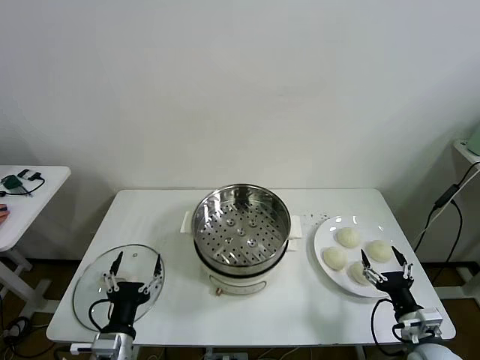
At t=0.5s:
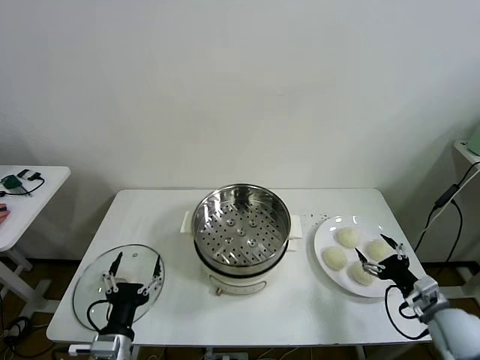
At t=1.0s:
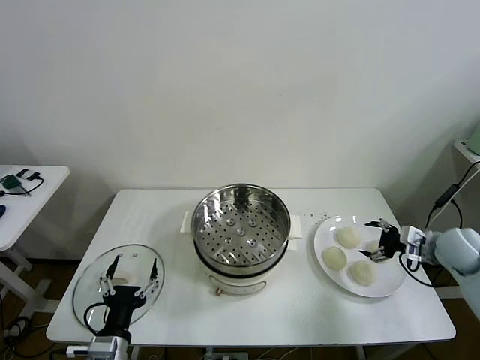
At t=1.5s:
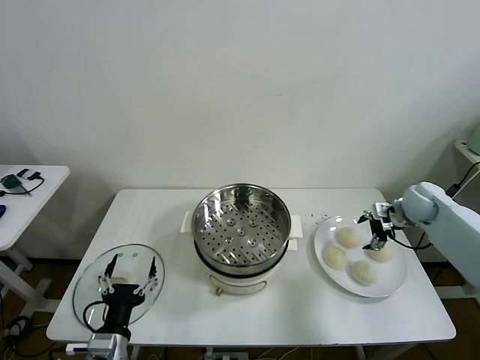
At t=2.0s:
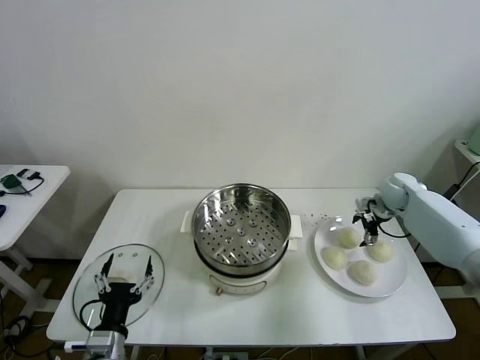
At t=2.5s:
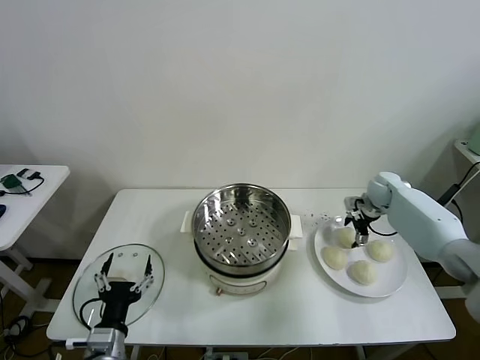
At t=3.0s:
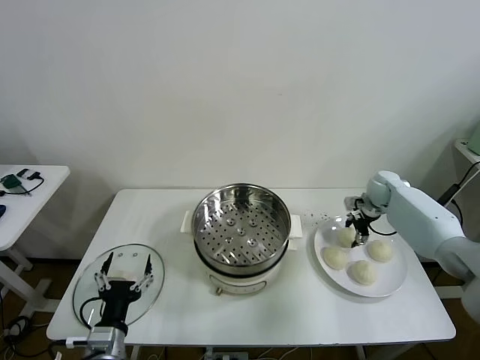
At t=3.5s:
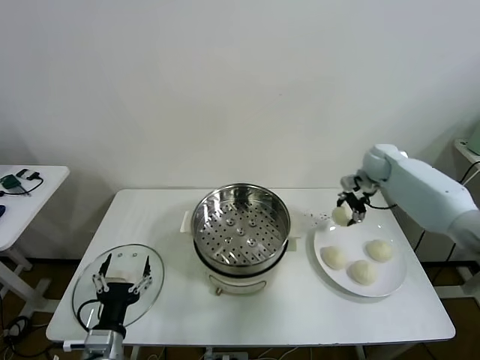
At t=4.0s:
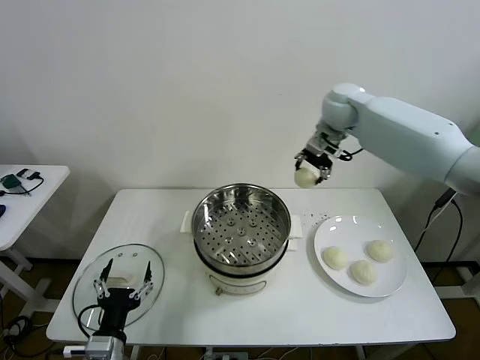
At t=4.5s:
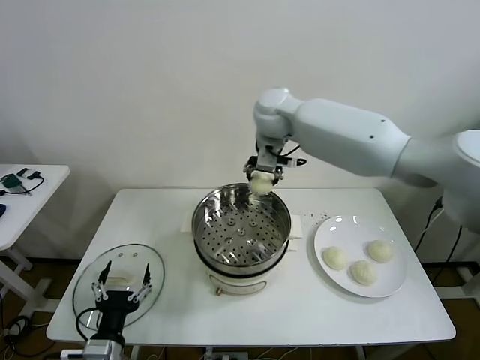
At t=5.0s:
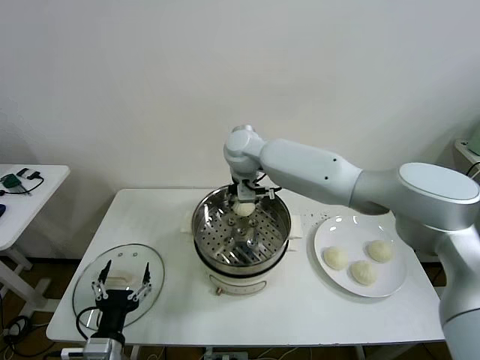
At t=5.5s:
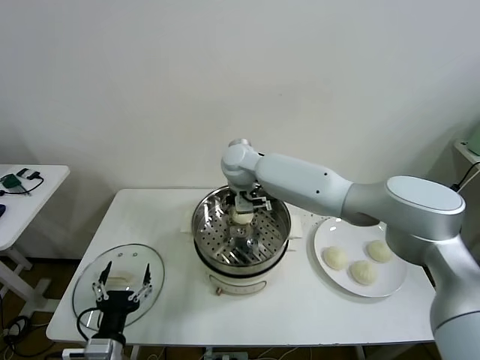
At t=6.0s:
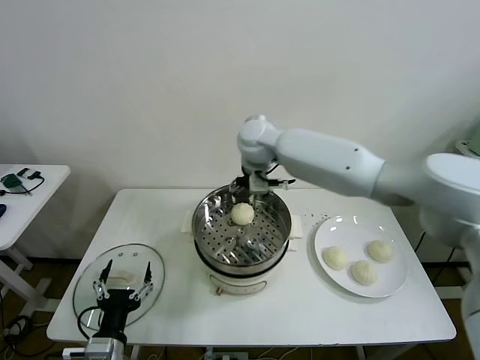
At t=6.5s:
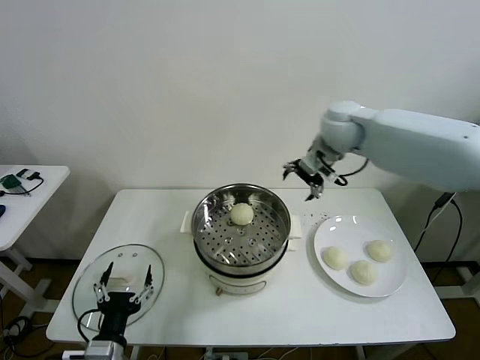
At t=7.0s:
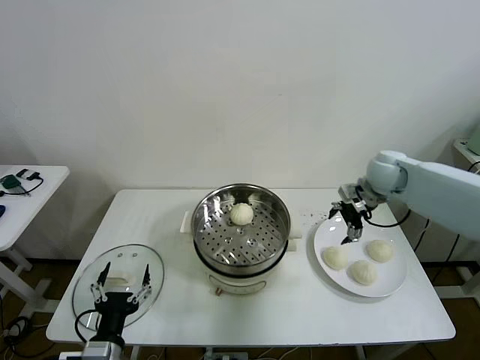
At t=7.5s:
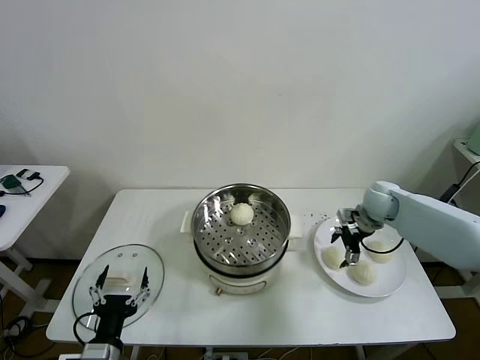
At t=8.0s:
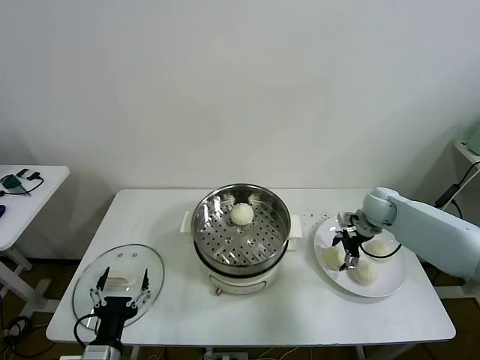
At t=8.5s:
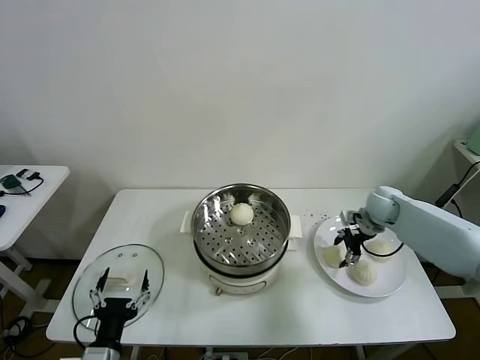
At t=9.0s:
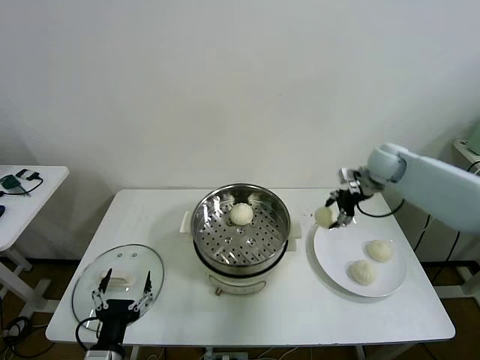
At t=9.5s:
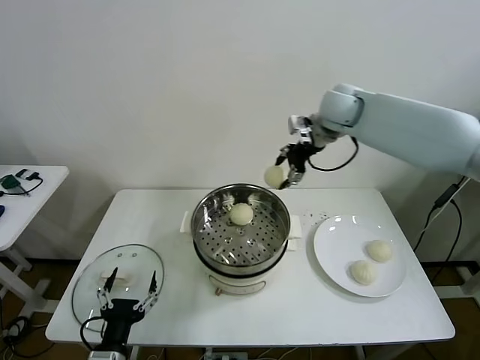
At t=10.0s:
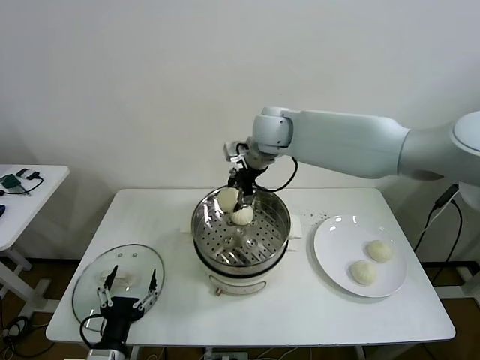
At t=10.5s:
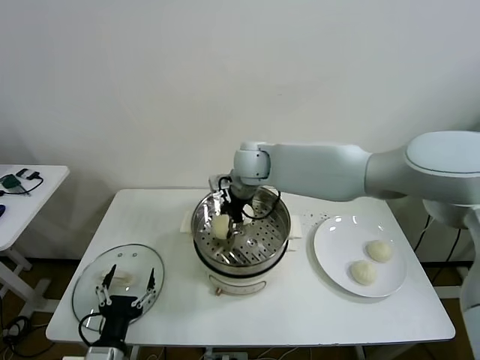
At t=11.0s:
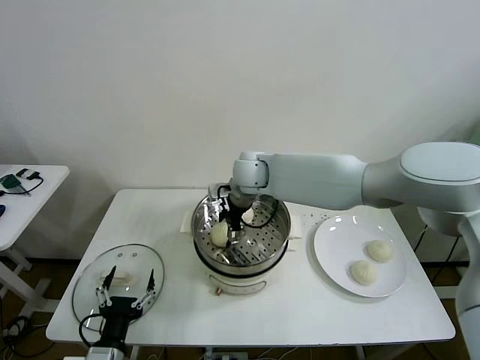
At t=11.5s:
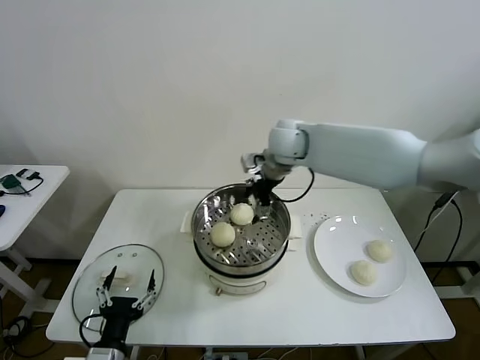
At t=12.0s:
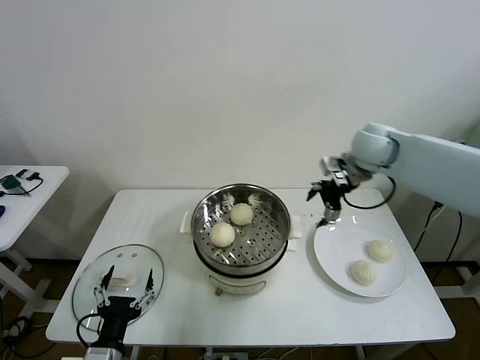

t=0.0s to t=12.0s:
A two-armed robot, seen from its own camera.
Task of the whole recording: take steamed baozi put them in steamer then cover it.
Step, t=0.0s to t=2.5s: Grasp the baozi in the plate with right gripper.
Step, t=3.0s to t=5.5s: Place the baozi on the steamer with right gripper.
Step, t=6.0s to t=8.0s: Grasp the baozi in the plate with right gripper.
Step, t=8.5s to t=11.0s: Place the baozi on the steamer with right gripper.
t=2.0s to t=4.0s: The right gripper heads upward and to the left, covering approximately 35 cm, and closes up.
t=4.0s to t=6.0s: The right gripper goes approximately 15 cm to the left, and opens its fingers.
t=6.0s to t=8.0s: The right gripper travels to the right and downward by some 40 cm, and closes.
t=8.0s to t=10.0s: The right gripper travels to the left and upward by some 40 cm.
t=10.0s to t=12.0s: The right gripper heads to the right, covering roughly 25 cm, and opens up.

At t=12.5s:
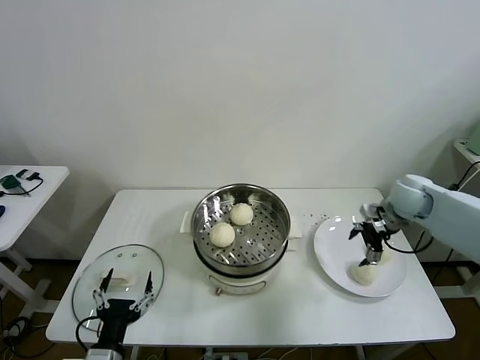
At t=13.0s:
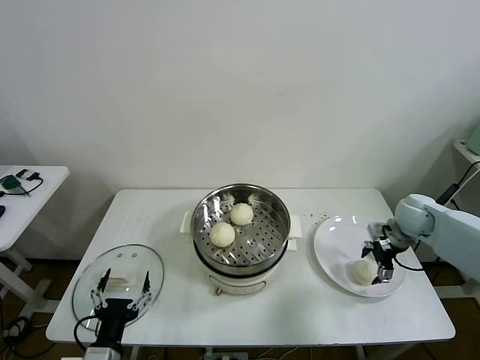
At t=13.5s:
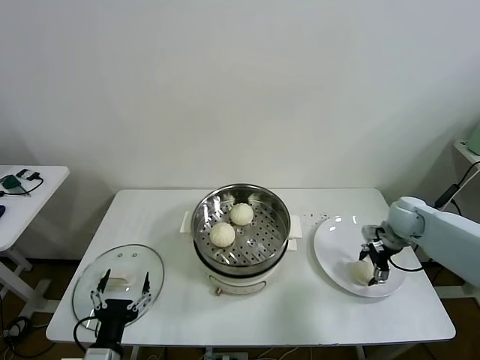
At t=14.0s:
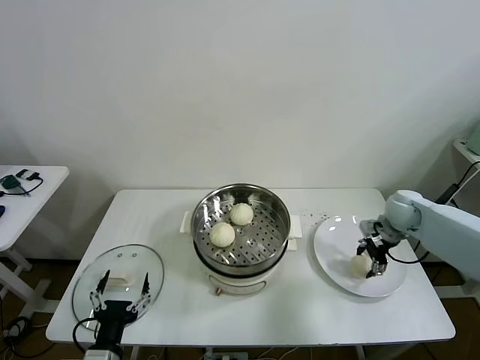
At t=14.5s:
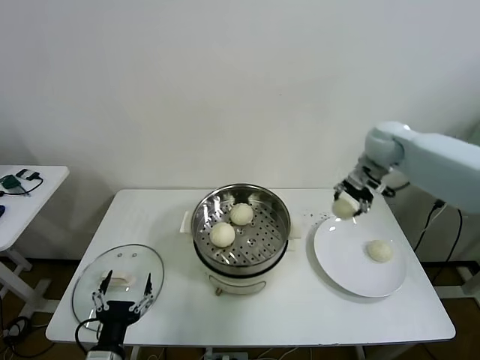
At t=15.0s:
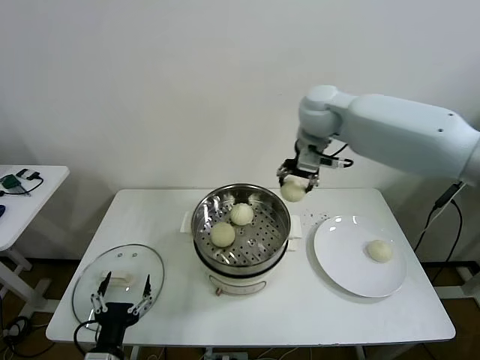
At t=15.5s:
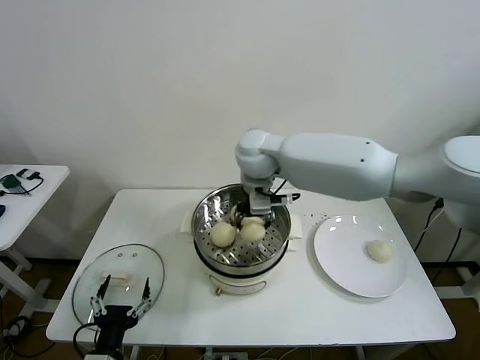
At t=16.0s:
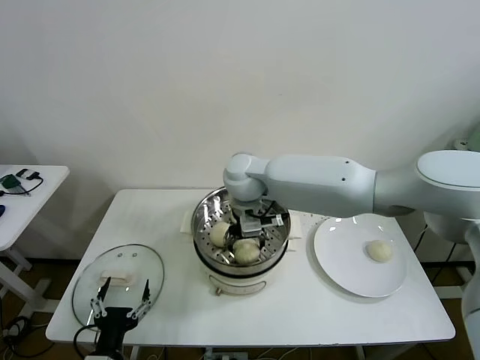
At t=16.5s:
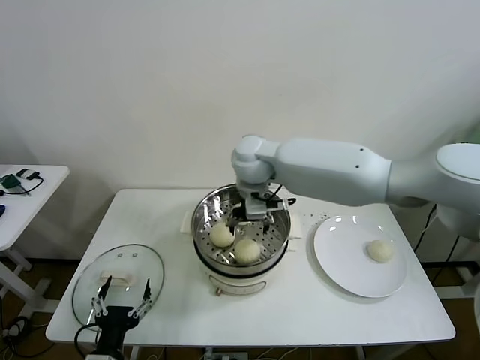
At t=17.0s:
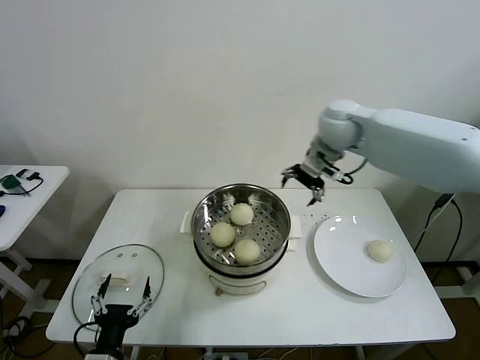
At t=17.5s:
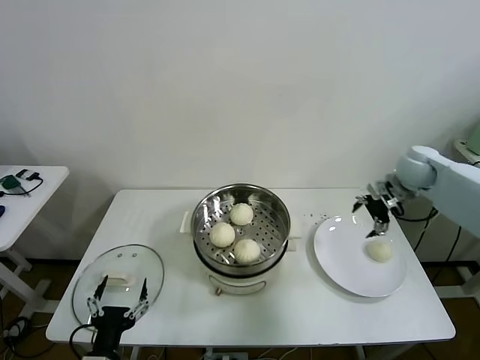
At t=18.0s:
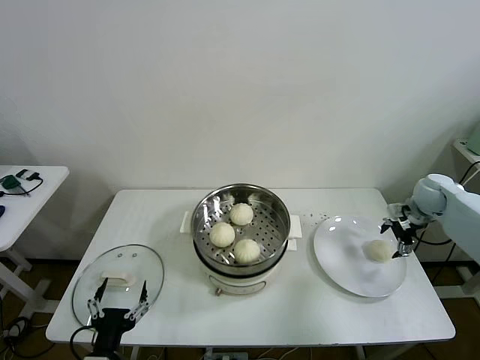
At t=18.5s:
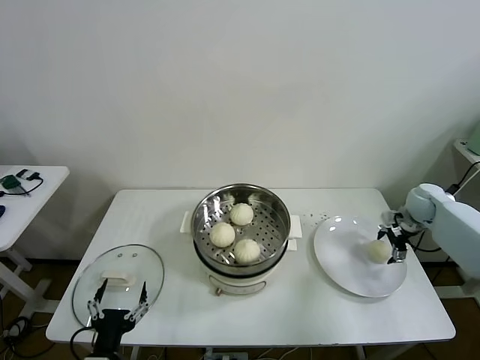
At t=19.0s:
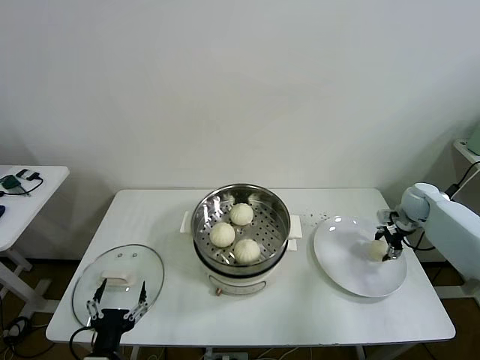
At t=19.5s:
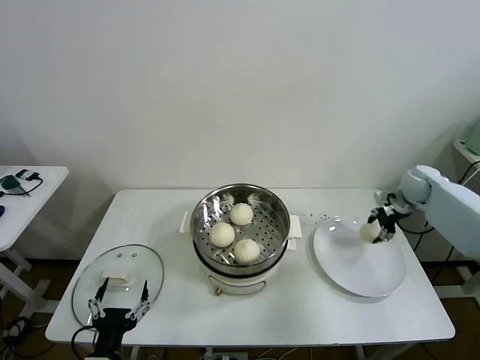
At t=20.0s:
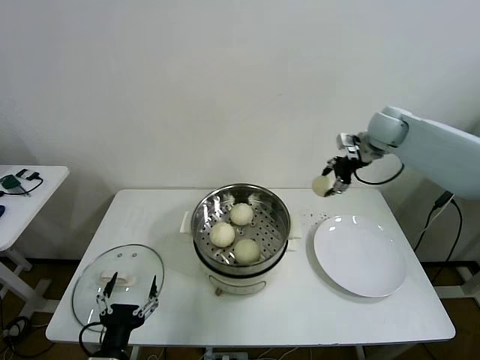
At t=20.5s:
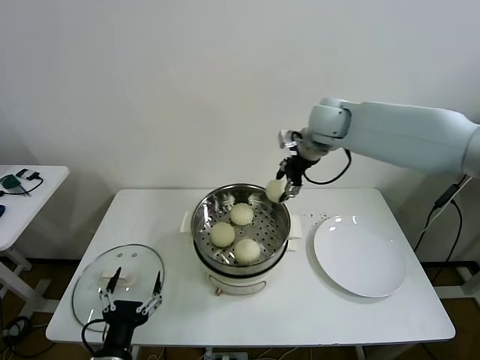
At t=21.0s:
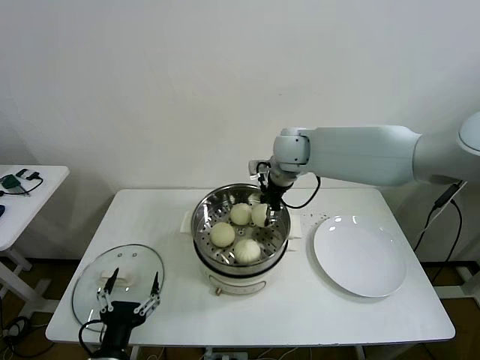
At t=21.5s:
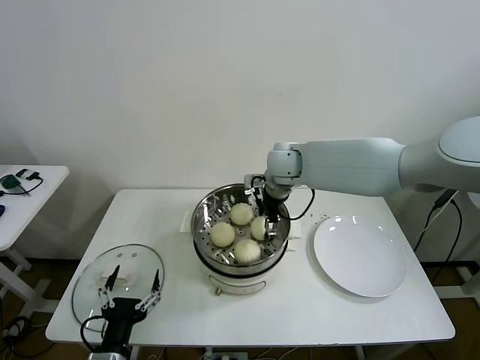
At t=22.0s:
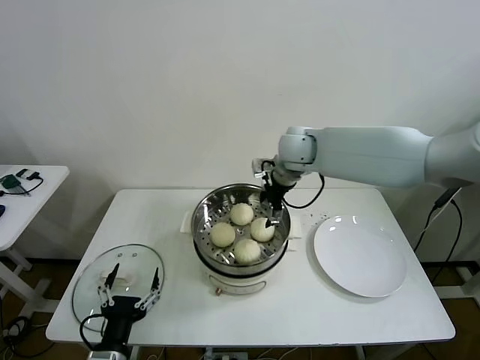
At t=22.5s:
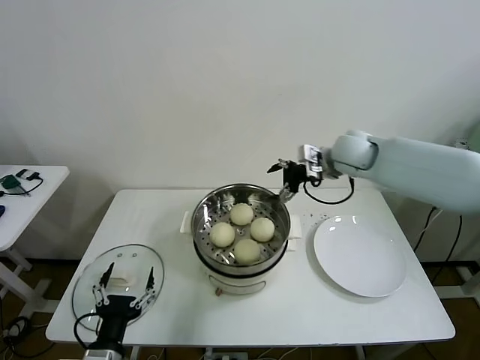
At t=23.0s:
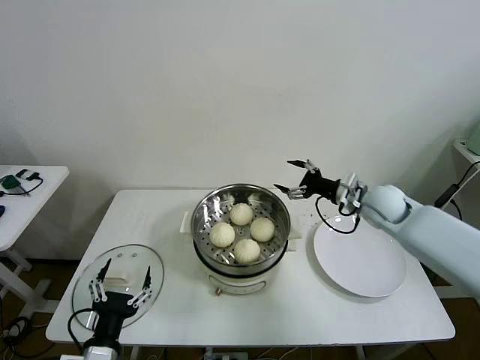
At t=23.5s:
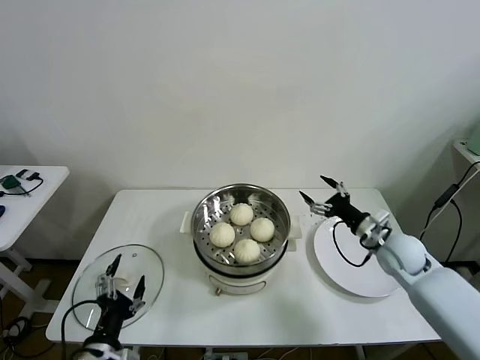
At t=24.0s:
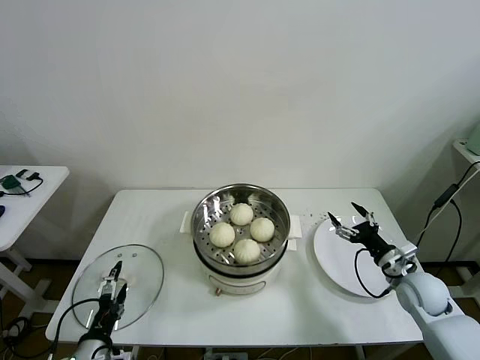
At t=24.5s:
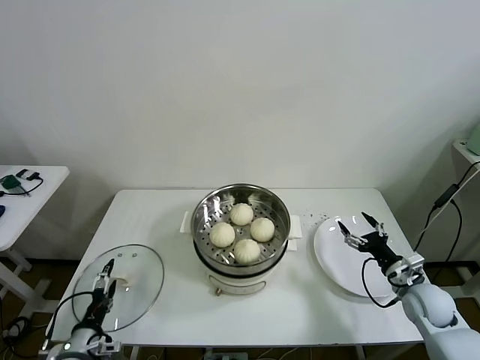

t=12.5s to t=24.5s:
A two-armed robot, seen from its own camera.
Task of the whole recording: take steamed baozi put them in steamer then cover it.
Step, t=14.0s to t=16.0s: Place the baozi on the steamer with right gripper.
Step, t=16.5s to t=19.0s: Grasp the baozi in the plate with right gripper.
Step, t=19.5s to t=21.5s: Place the baozi on the steamer with right gripper.
t=12.5s to t=14.5s: The right gripper is displaced upward, to the left and forward by approximately 15 cm, and closes.
t=14.5s to t=16.5s: The right gripper goes approximately 30 cm to the left, and opens its fingers.
t=16.5s to t=18.5s: The right gripper goes approximately 50 cm to the right.
t=18.5s to t=20.5s: The right gripper is displaced to the left and upward by approximately 35 cm, and closes up.
t=20.5s to t=22.5s: The right gripper goes approximately 5 cm downward, reaches approximately 10 cm to the left, then returns, and opens up.
t=22.5s to t=24.5s: The left gripper travels to the left, downward and forward by approximately 15 cm. The right gripper shifts approximately 40 cm downward, backward and to the right.

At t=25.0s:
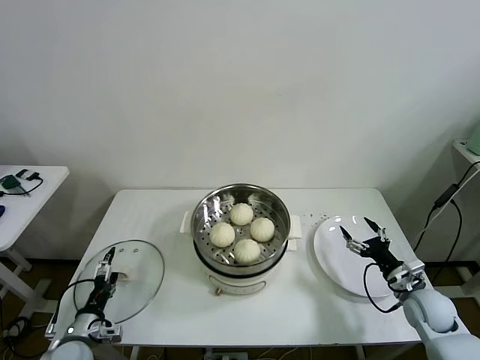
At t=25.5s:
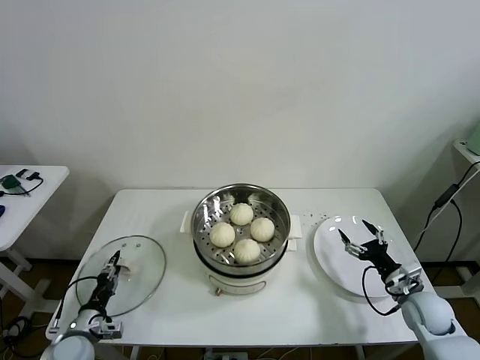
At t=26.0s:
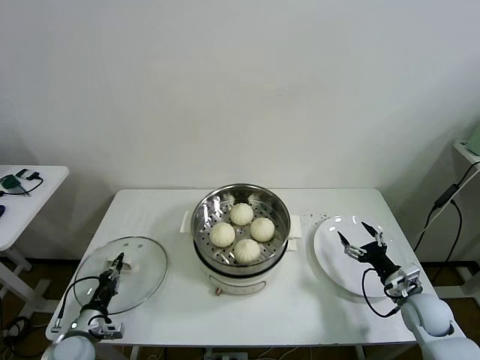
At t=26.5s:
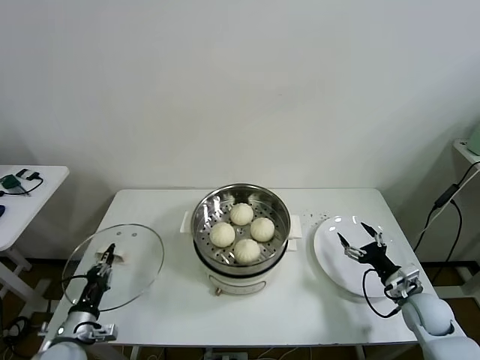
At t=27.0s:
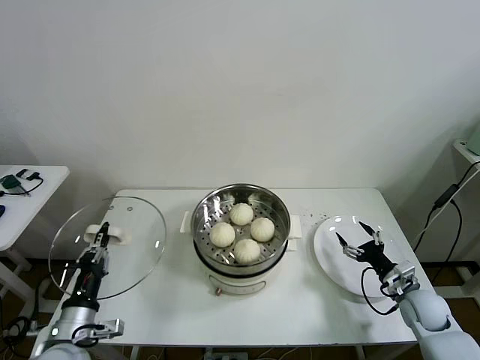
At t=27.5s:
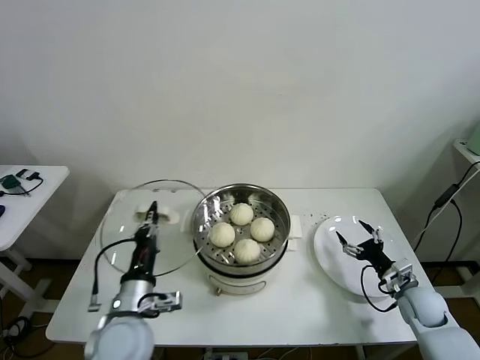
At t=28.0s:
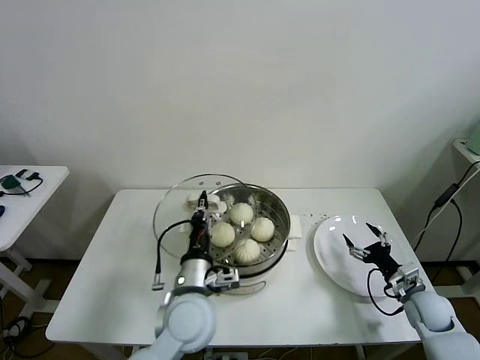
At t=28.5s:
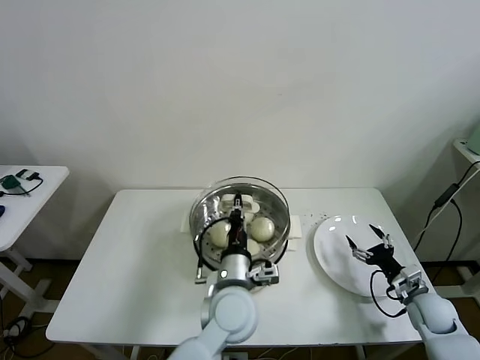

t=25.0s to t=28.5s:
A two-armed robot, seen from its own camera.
Task of the whole recording: take steamed baozi put them in steamer then cover it.
t=25.0s to t=27.0s: The left gripper is displaced upward by about 10 cm, and closes.
t=27.0s to t=28.5s: The left gripper goes roughly 30 cm to the right.
